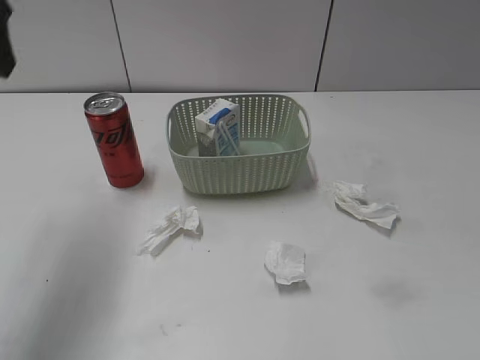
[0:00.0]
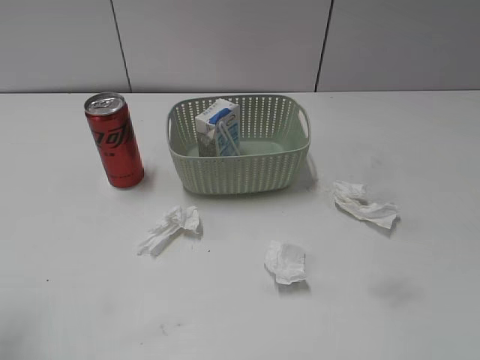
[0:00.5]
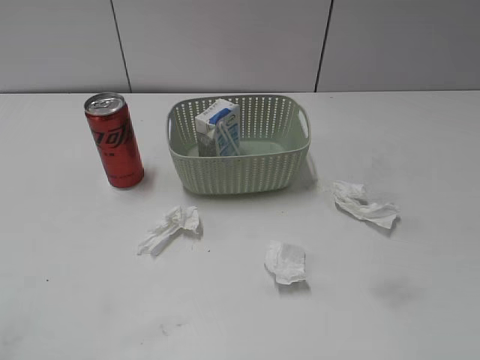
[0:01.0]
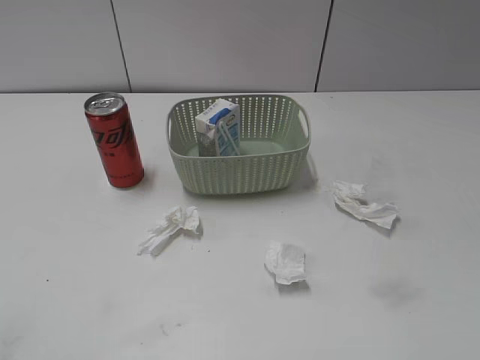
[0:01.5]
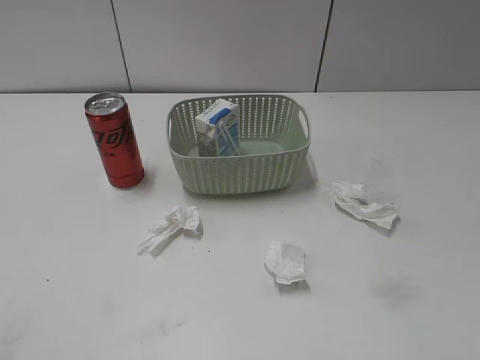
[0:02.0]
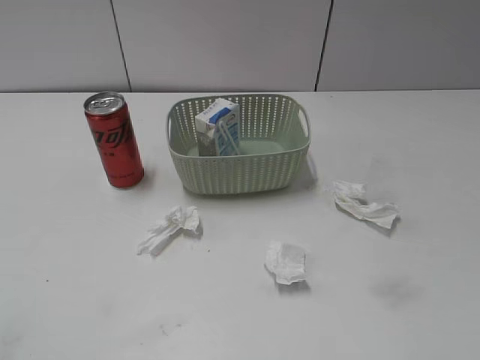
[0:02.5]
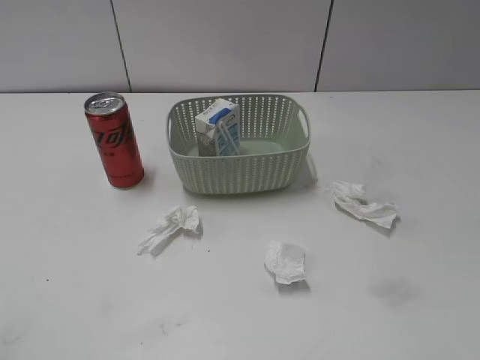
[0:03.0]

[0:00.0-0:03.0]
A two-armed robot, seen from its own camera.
0:00.0 to 0:01.5: The left gripper shifts some 25 cm backward.

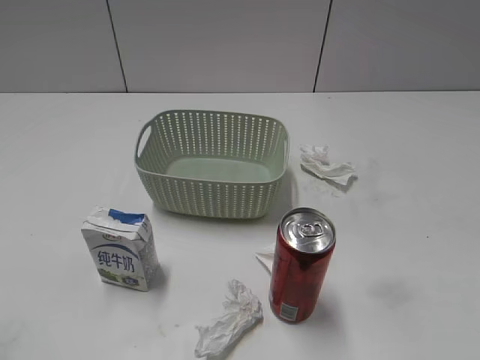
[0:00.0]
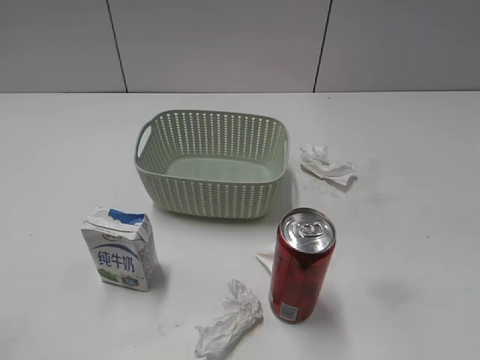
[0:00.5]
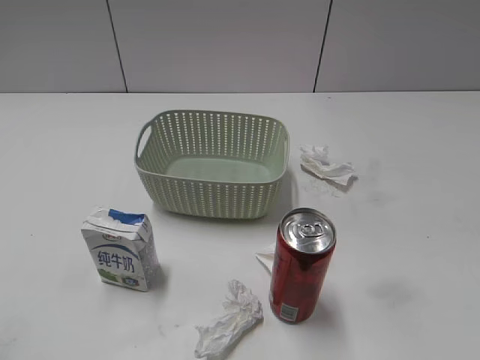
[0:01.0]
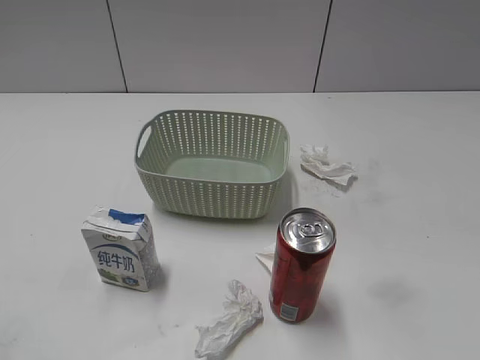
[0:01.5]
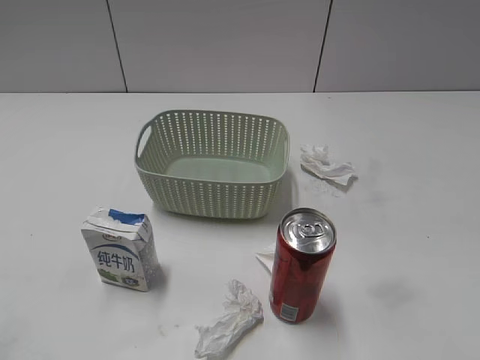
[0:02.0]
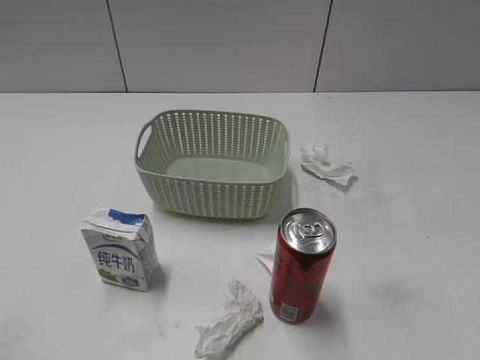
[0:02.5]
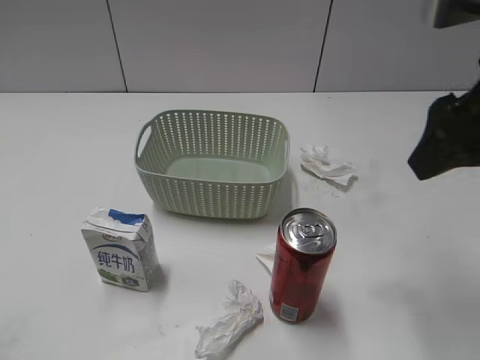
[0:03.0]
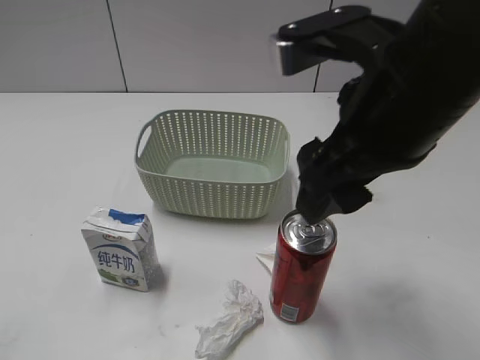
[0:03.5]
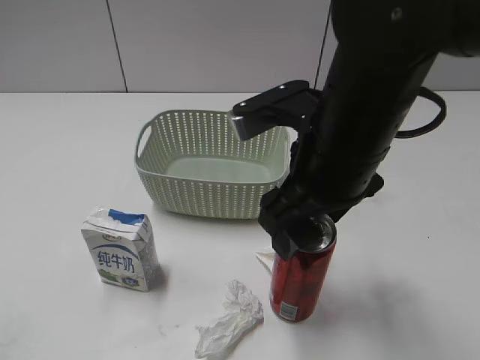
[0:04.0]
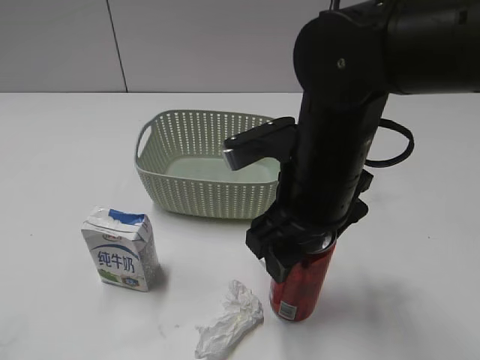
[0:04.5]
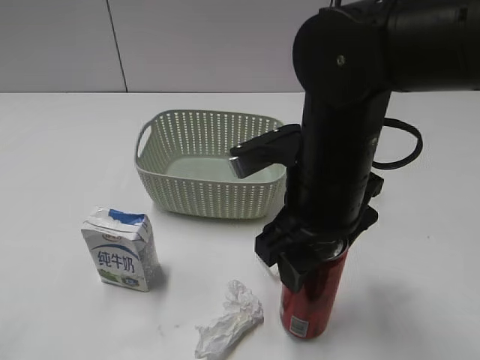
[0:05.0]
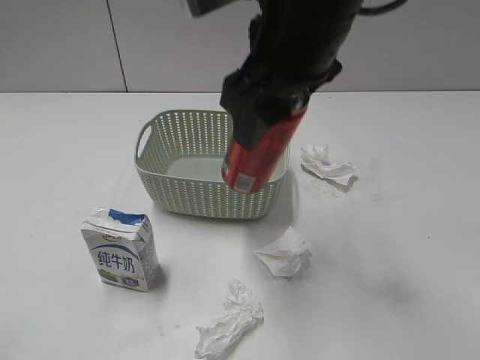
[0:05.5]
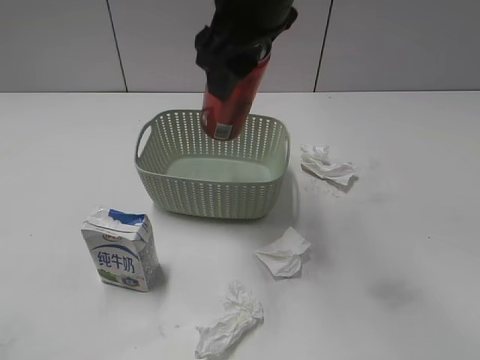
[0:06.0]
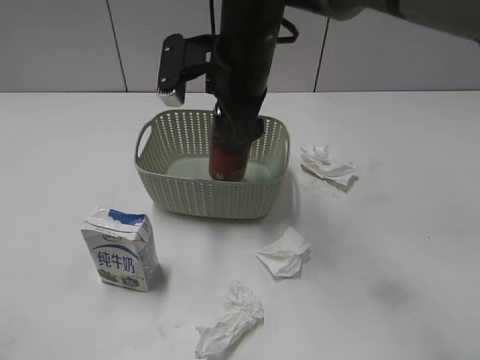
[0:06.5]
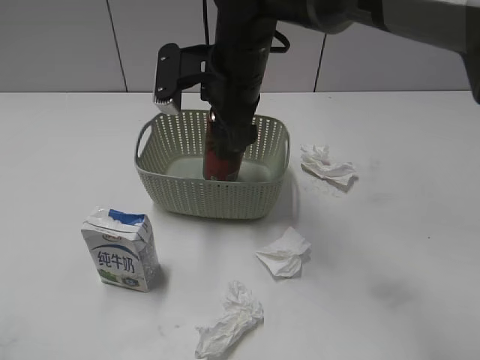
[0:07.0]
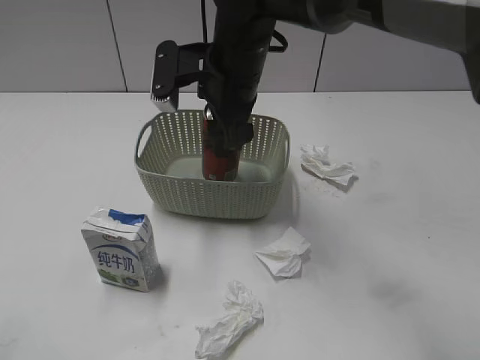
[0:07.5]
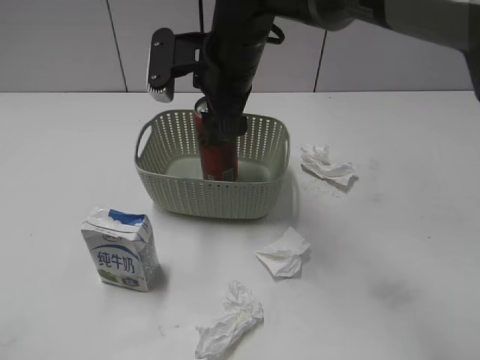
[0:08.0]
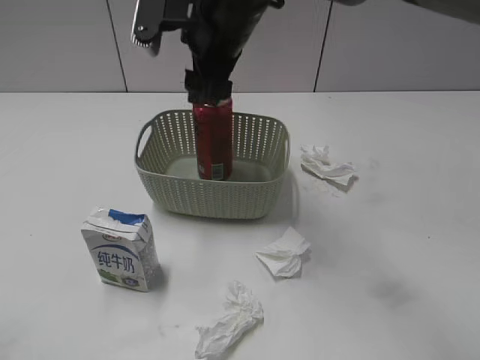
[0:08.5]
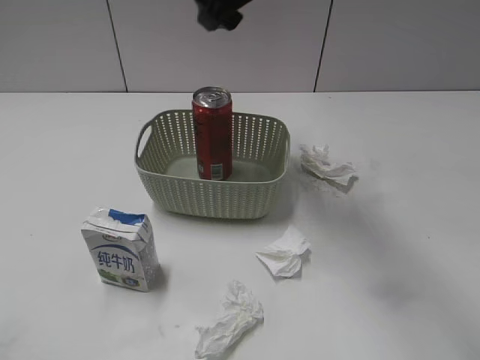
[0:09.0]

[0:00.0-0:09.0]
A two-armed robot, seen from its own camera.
Step, 0:03.0 to 0:04.5: Grasp the cola can with right gripper.
Step, 0:05.0 to 0:08.5: Place the cola can in the basket with right gripper.
0:02.0 to 0:04.5: The right gripper travels to the left and forward by approximately 25 cm.
0:04.5 to 0:07.0: The right gripper is displaced forward and to the left by about 15 cm.
0:07.0 to 0:09.0: The right gripper travels upward by roughly 10 cm.

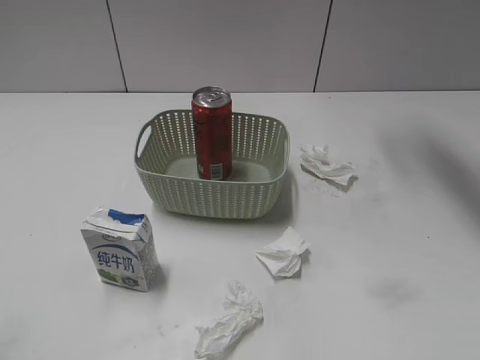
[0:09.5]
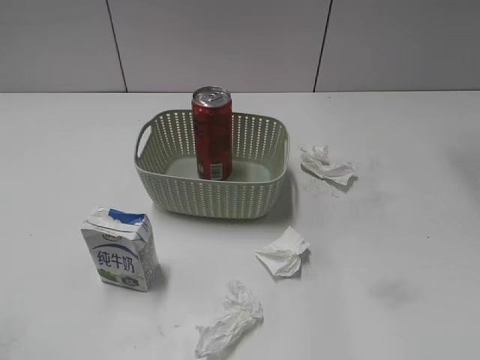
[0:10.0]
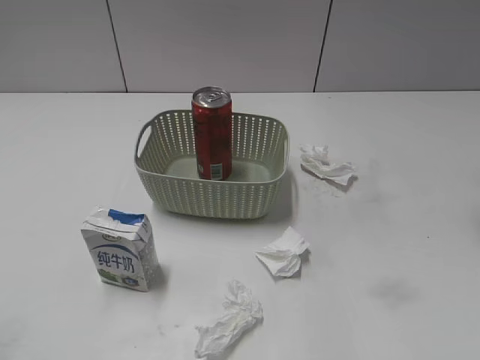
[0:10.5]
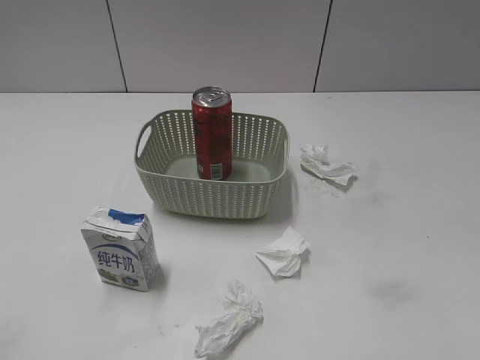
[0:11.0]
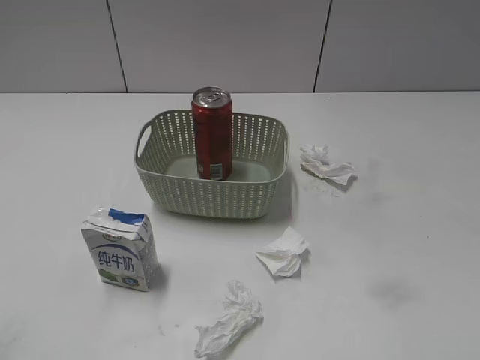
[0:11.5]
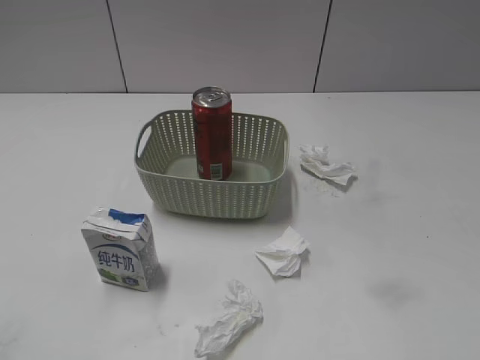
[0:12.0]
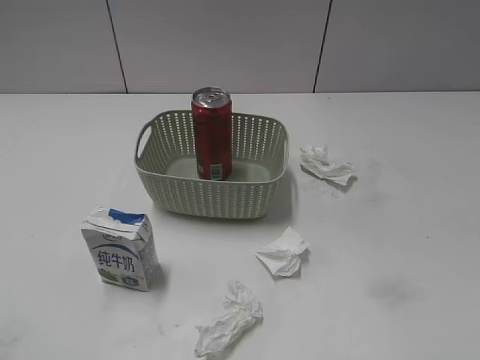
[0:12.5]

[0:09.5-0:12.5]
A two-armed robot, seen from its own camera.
0:09.5 to 0:11.0: The right gripper heads backward, covering approximately 30 cm.
